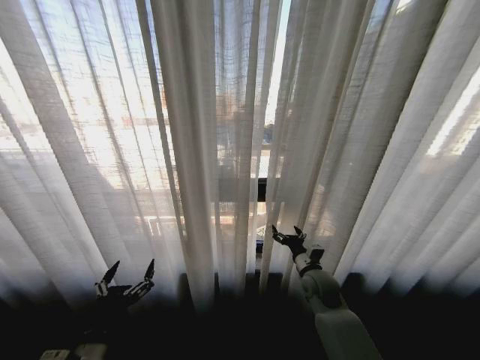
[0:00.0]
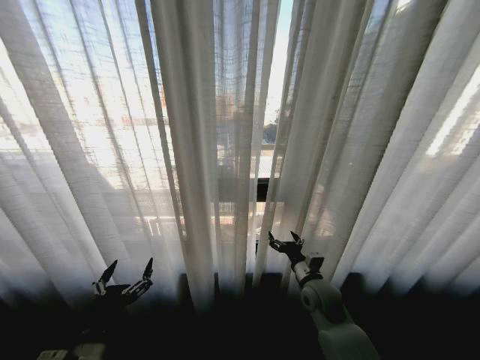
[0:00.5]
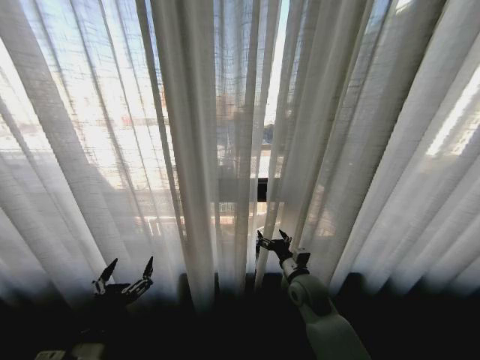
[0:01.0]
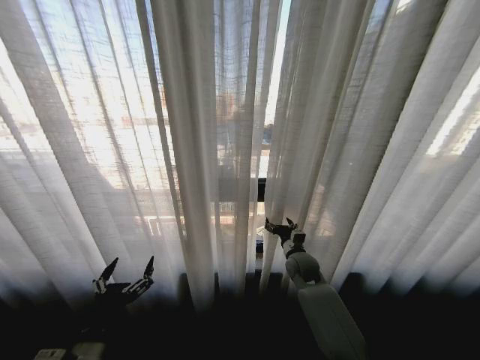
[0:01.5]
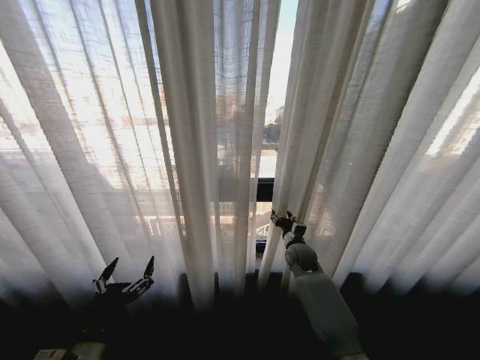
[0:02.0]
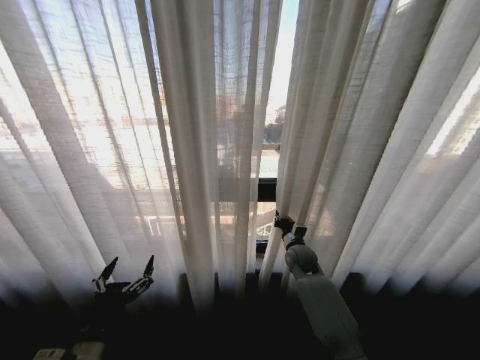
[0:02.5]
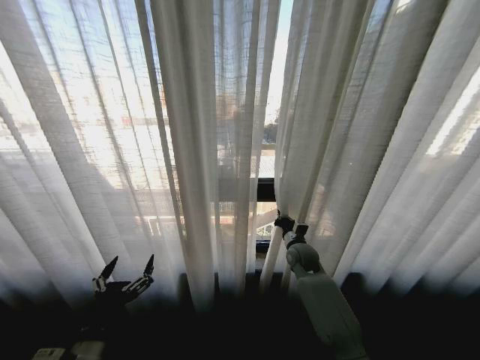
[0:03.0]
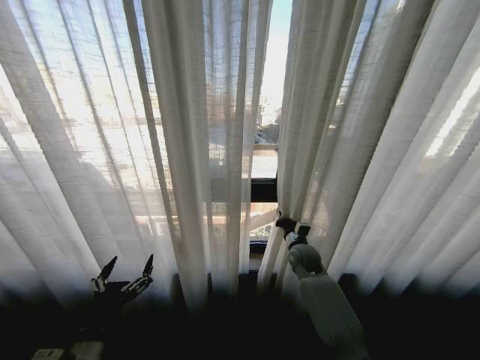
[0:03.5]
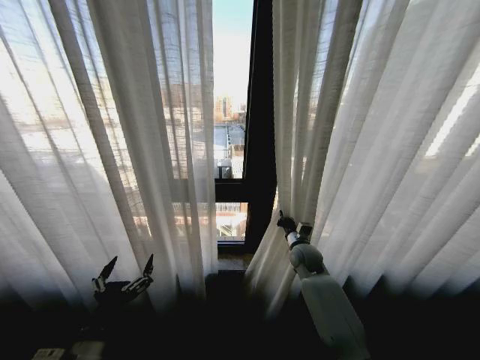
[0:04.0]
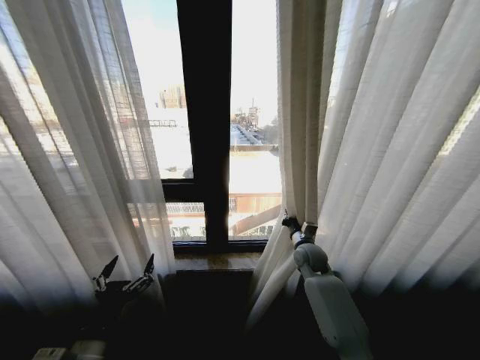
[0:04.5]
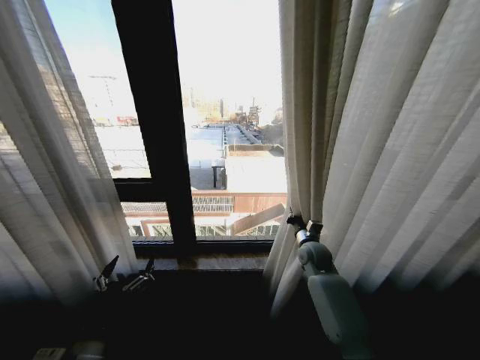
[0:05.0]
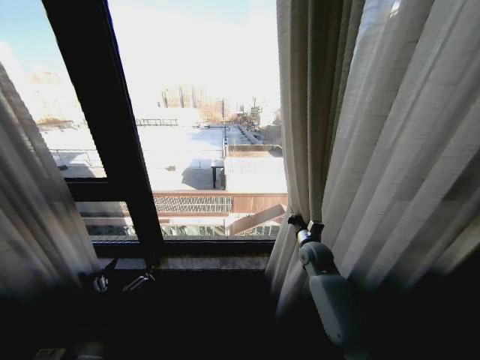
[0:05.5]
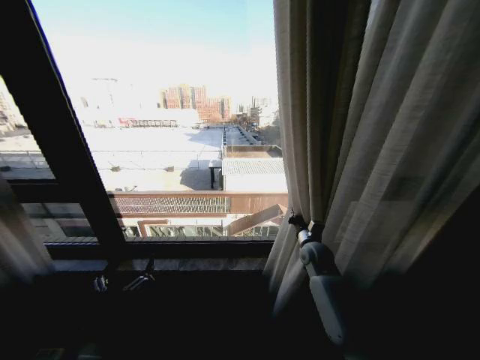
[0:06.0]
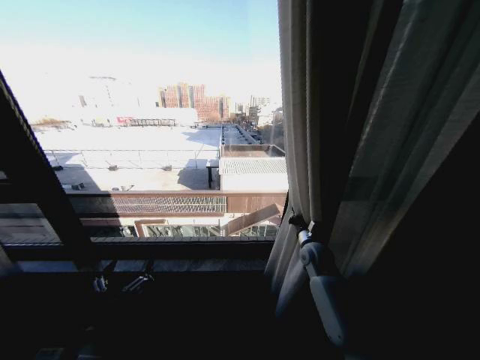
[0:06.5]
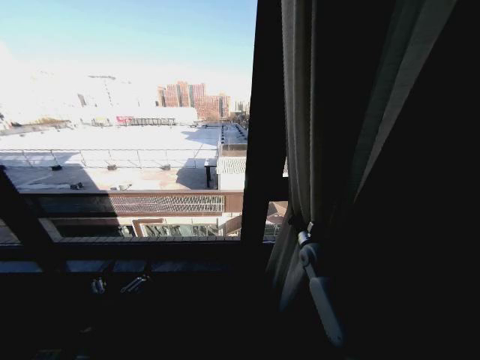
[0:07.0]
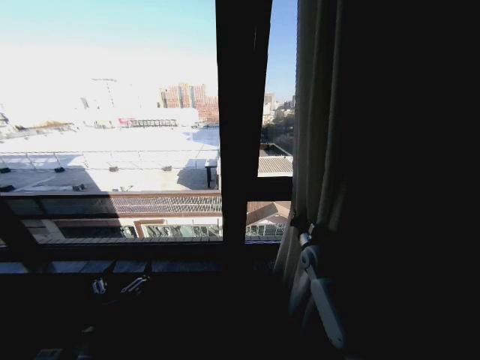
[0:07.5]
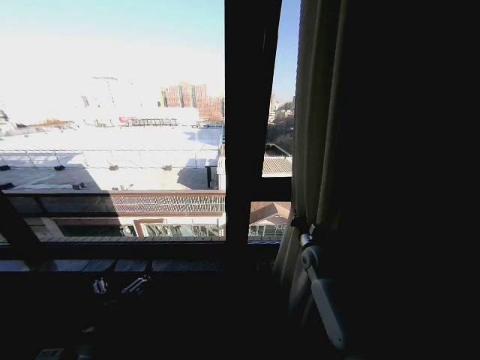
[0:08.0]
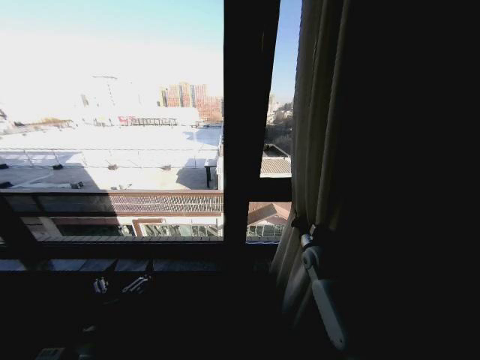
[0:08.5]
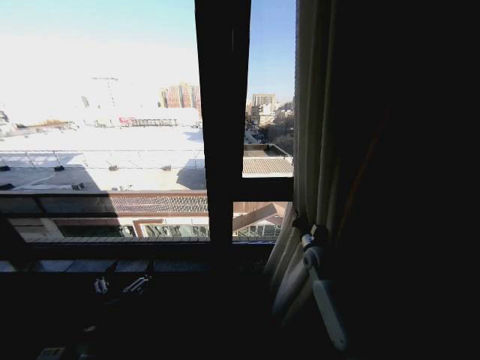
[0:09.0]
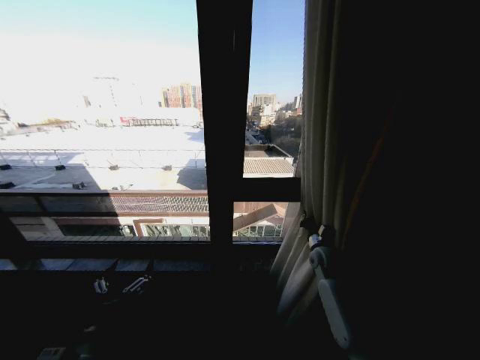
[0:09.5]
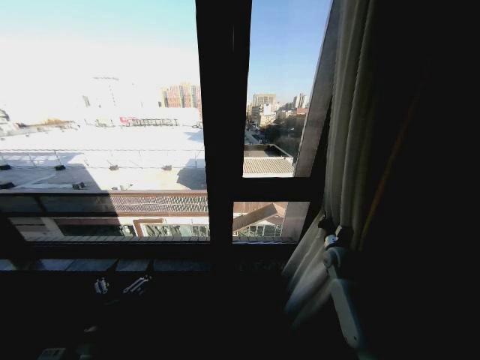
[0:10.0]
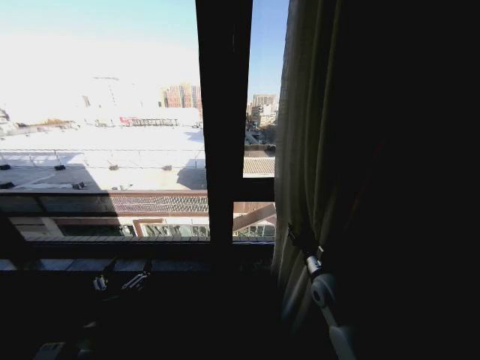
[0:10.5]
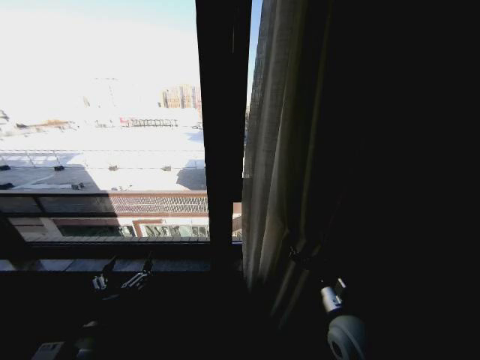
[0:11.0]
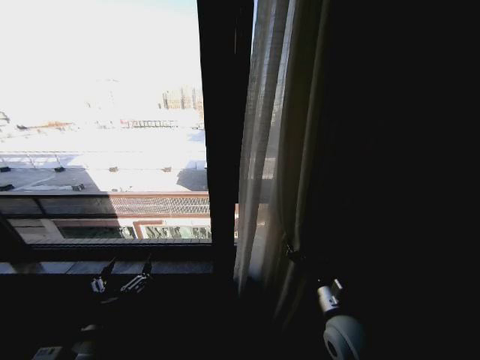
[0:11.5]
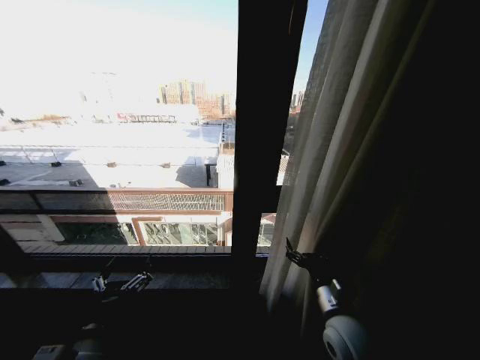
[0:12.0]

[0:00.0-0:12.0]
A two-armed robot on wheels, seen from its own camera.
Task of the whole recording: Open the curtains by pulling them apart, changing their state from closed to fully open.
0:00.0 to 0:02.0: The right gripper heads forward, covering some 10 cm.
0:02.0 to 0:04.0: The right gripper closes its fingers.
0:08.0 to 0:10.0: The right gripper is displaced to the right by approximately 10 cm.
0:10.0 to 0:12.0: The right gripper is displaced backward and to the left by about 25 cm, and opens.

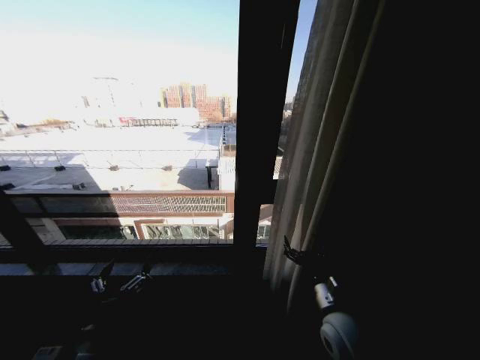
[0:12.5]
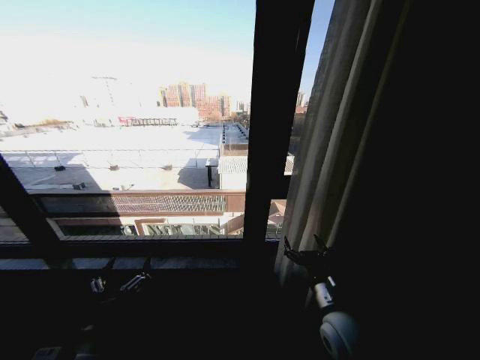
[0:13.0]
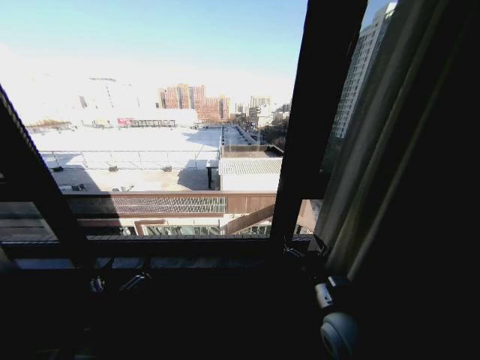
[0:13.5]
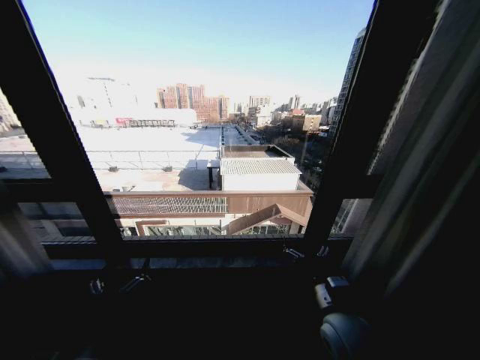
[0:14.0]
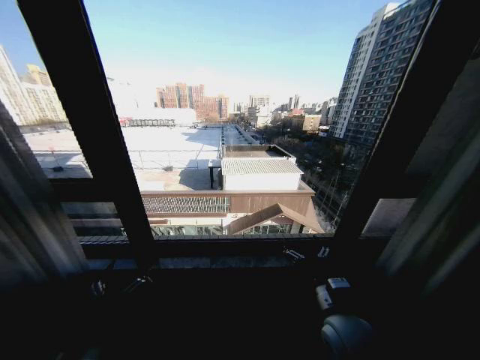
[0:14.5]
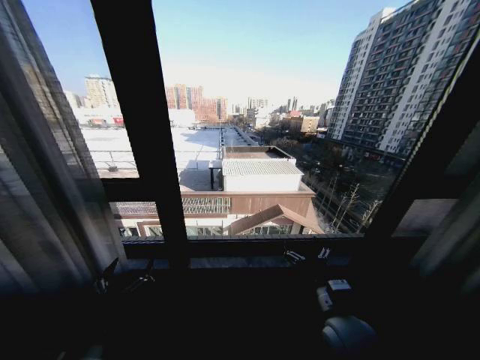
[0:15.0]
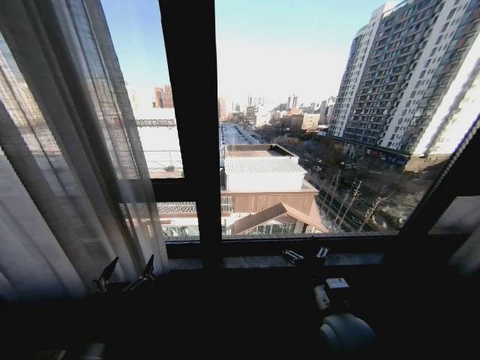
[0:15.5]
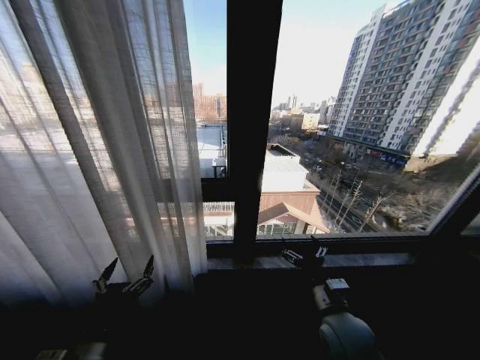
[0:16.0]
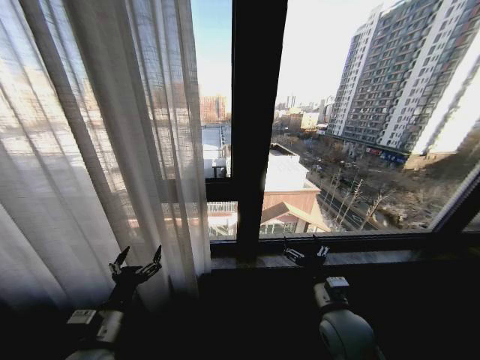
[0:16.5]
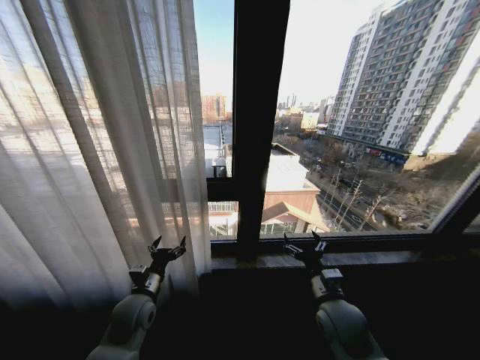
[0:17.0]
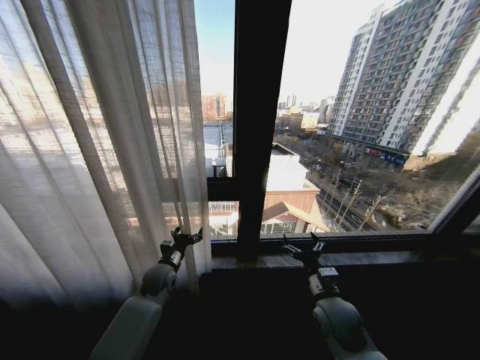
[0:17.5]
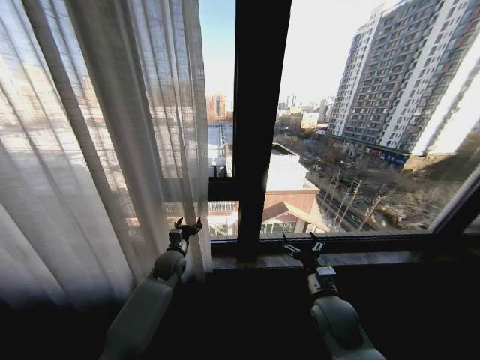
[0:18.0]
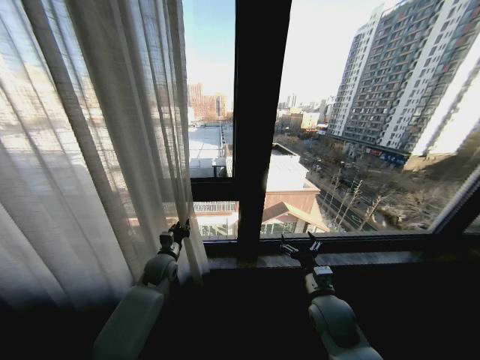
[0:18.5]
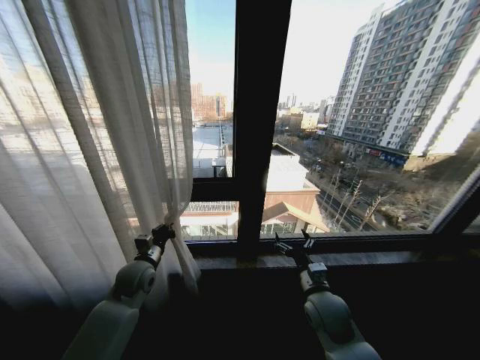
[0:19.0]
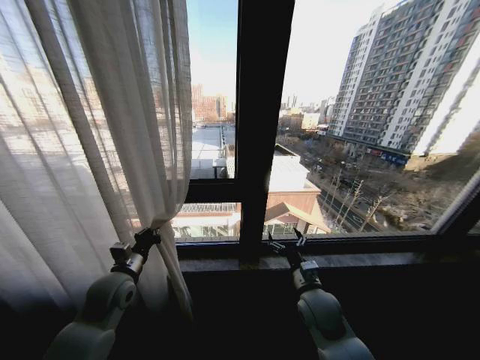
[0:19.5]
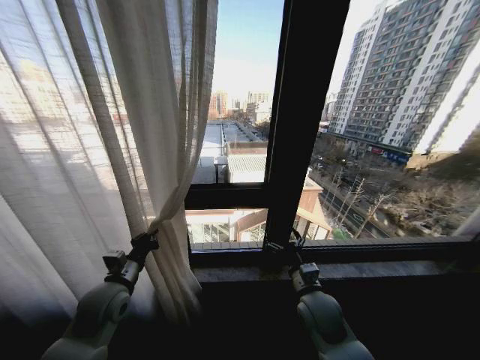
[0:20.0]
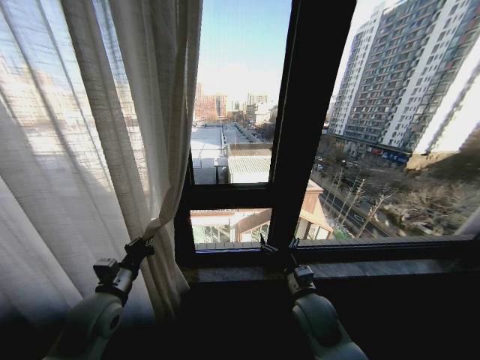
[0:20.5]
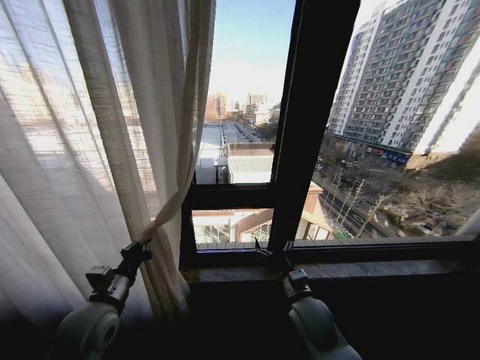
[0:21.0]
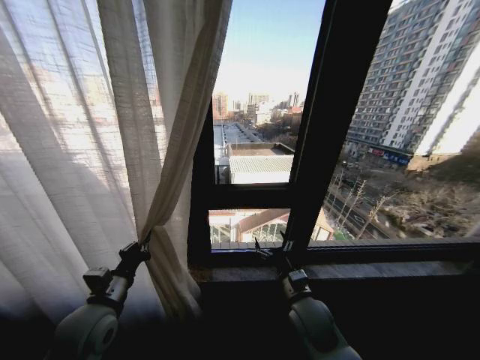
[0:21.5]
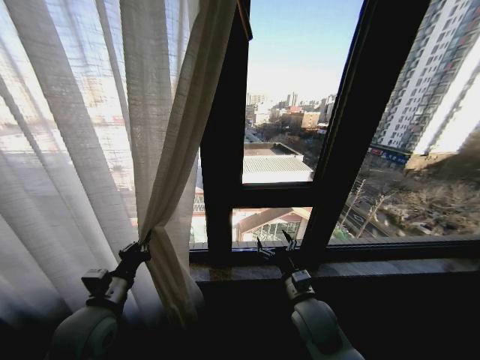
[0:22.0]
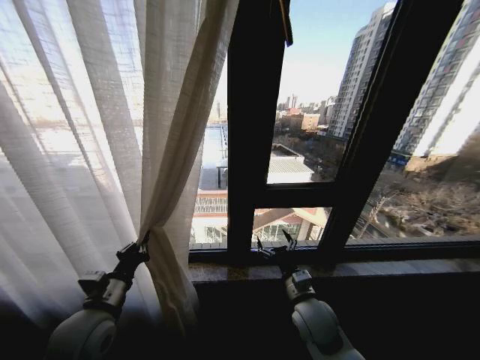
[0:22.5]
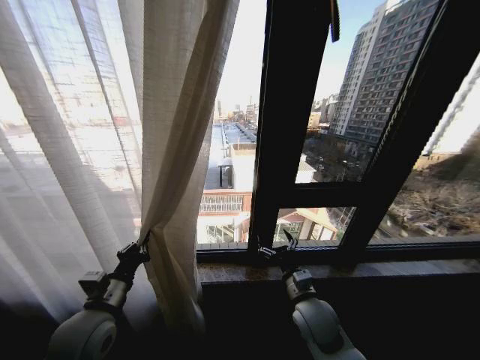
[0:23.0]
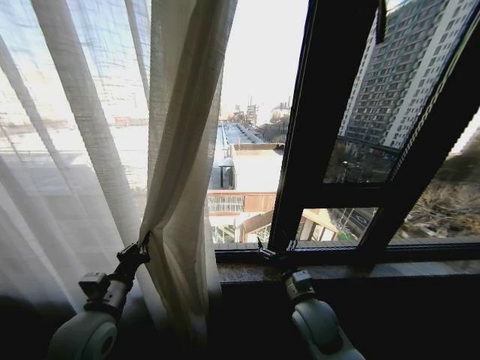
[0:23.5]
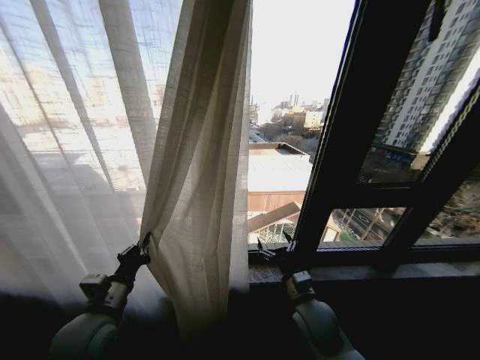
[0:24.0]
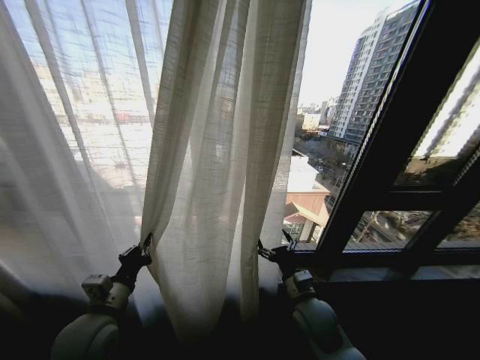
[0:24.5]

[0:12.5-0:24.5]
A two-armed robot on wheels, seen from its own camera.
Task of the whole recording: Open the curtains by pulling them apart, changing their state from closed to fully open.
0:14.5 to 0:16.5: The left gripper shifts roughly 5 cm forward.
0:16.5 to 0:18.5: The left gripper goes about 25 cm forward, and closes its fingers, while the right gripper moves some 5 cm.
0:18.5 to 0:20.5: The left gripper goes about 20 cm backward, to the left and upward.

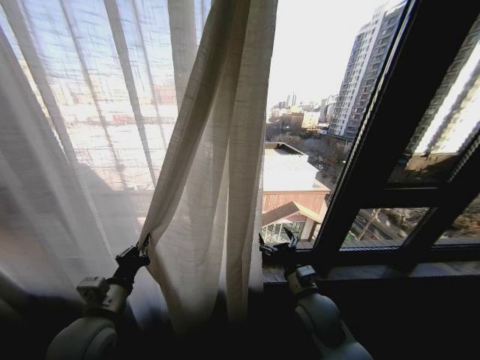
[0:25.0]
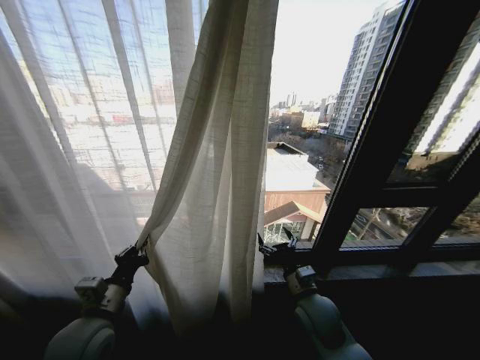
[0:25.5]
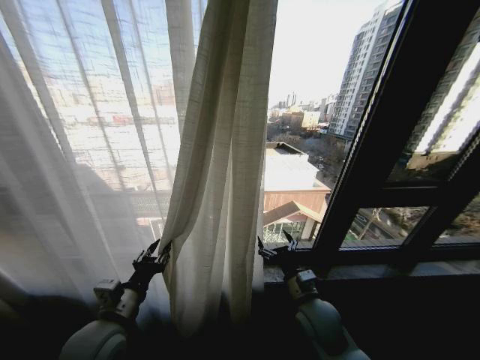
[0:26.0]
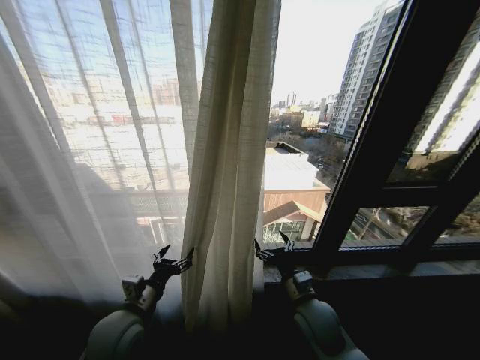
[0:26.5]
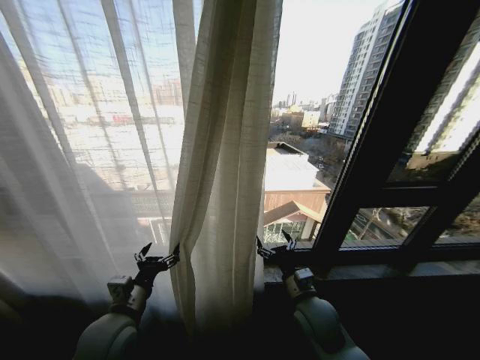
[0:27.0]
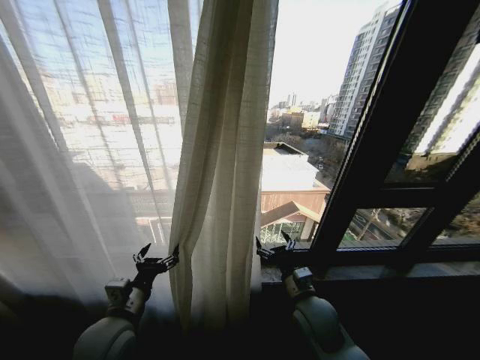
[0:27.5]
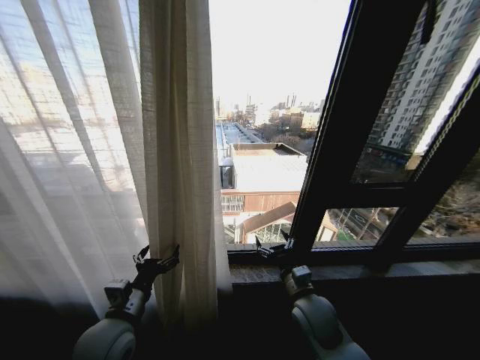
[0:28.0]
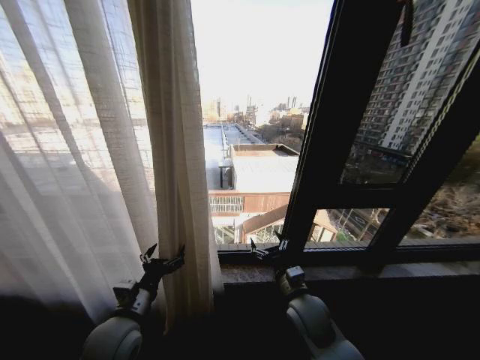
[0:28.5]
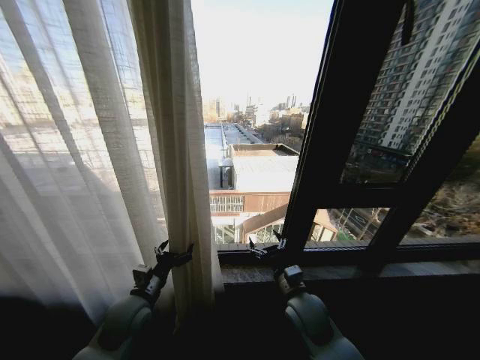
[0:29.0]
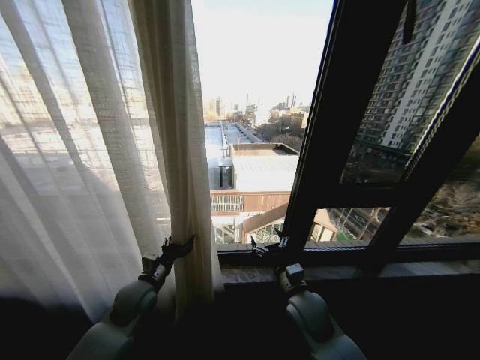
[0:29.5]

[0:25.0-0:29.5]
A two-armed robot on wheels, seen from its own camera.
Task of the whole recording: Open the curtains by pulling them apart, changing their state from closed to fully open.
0:25.0 to 0:27.0: The left gripper opens up.
0:27.0 to 0:29.5: The left gripper travels forward by some 10 cm.
